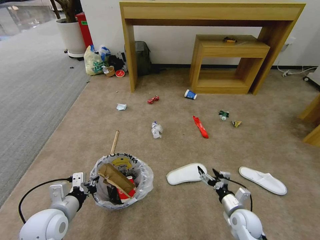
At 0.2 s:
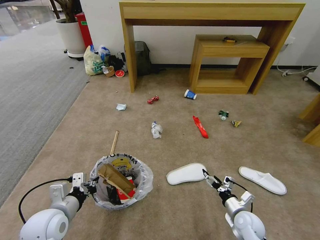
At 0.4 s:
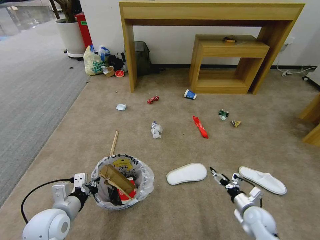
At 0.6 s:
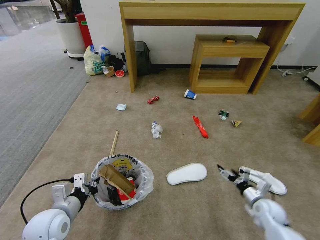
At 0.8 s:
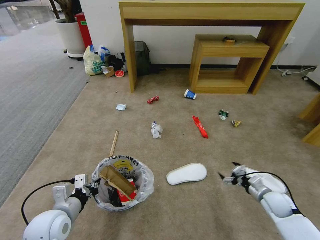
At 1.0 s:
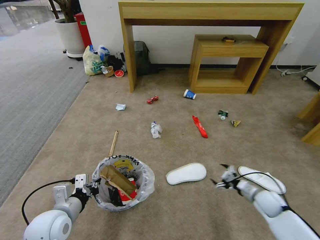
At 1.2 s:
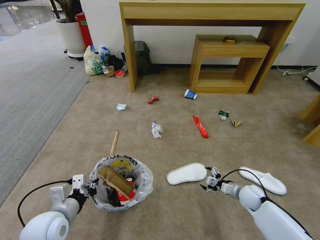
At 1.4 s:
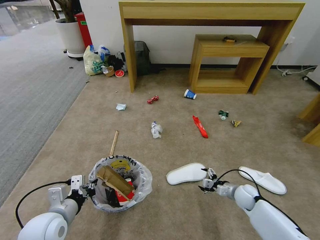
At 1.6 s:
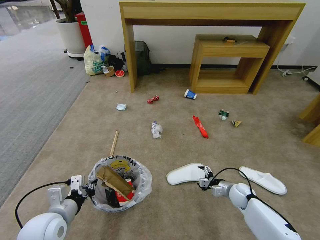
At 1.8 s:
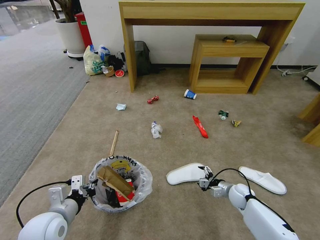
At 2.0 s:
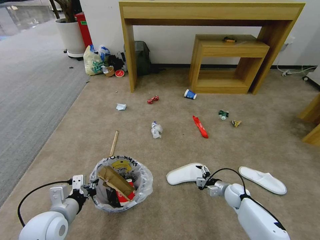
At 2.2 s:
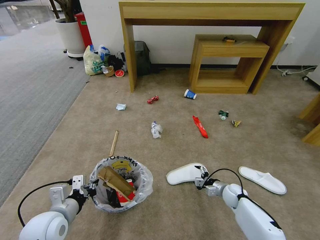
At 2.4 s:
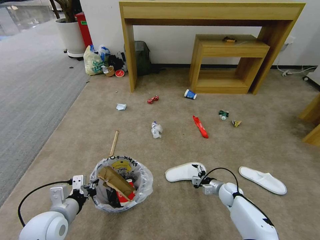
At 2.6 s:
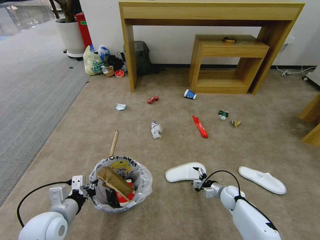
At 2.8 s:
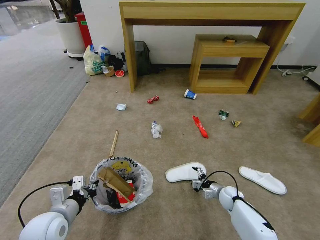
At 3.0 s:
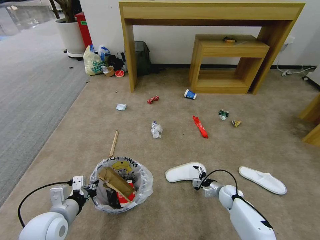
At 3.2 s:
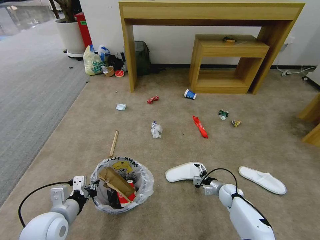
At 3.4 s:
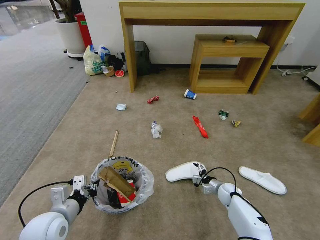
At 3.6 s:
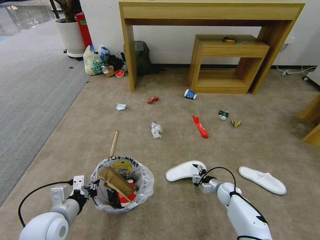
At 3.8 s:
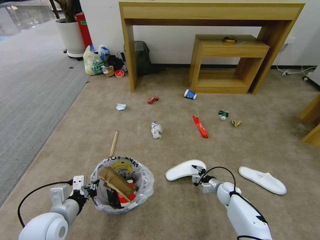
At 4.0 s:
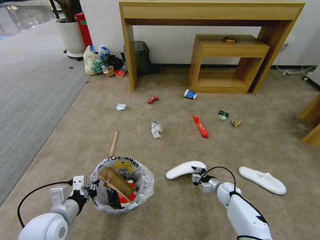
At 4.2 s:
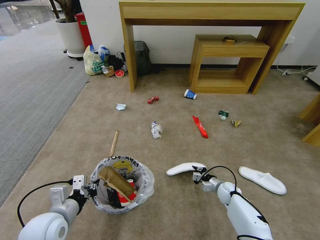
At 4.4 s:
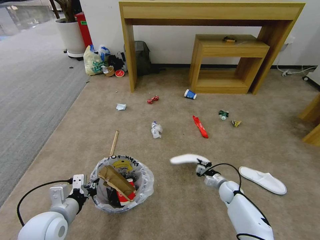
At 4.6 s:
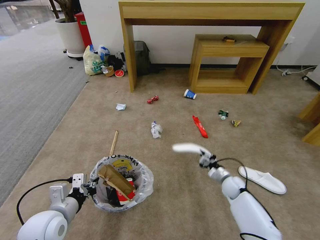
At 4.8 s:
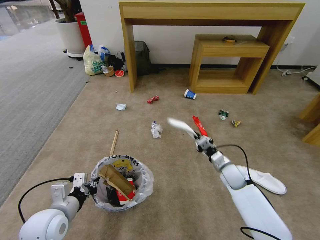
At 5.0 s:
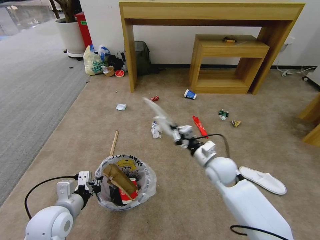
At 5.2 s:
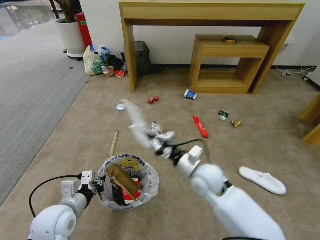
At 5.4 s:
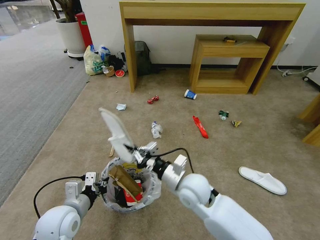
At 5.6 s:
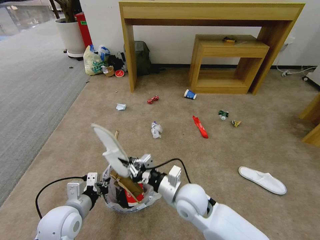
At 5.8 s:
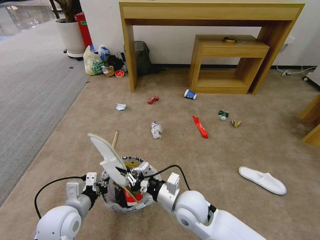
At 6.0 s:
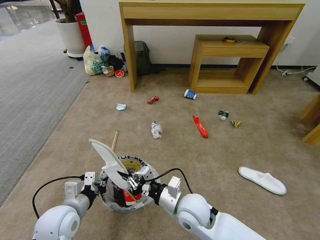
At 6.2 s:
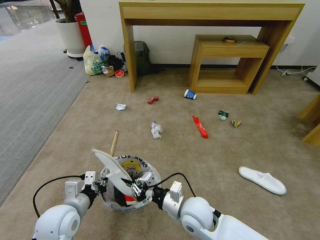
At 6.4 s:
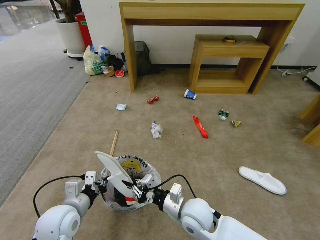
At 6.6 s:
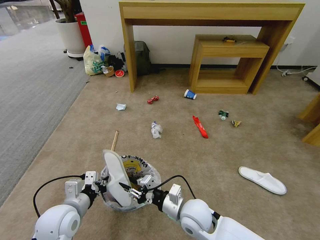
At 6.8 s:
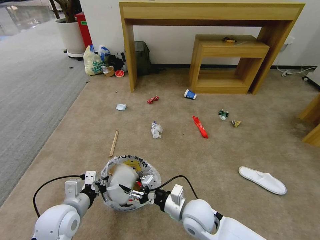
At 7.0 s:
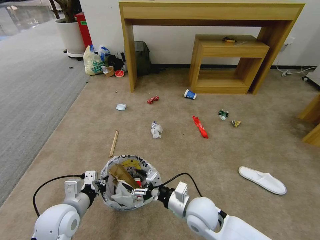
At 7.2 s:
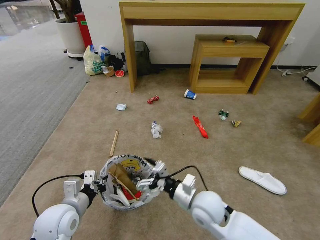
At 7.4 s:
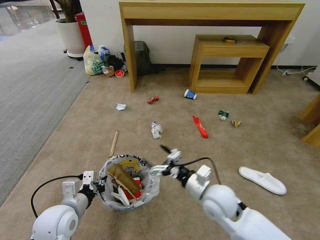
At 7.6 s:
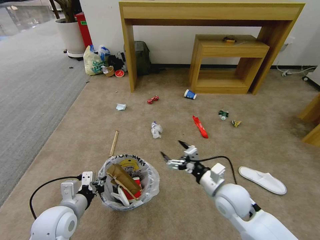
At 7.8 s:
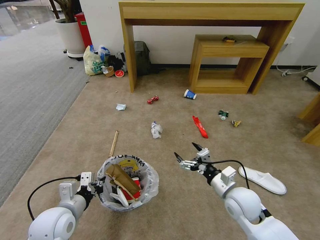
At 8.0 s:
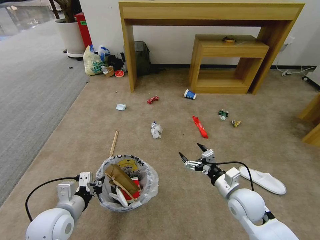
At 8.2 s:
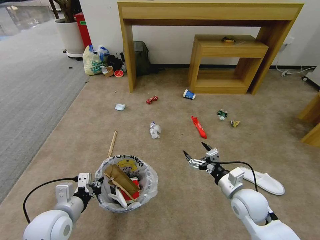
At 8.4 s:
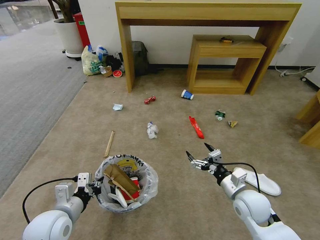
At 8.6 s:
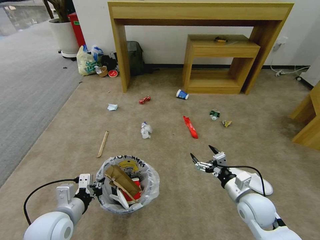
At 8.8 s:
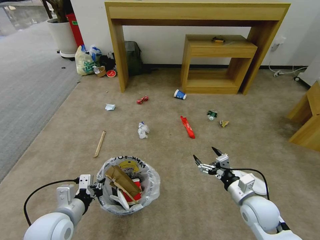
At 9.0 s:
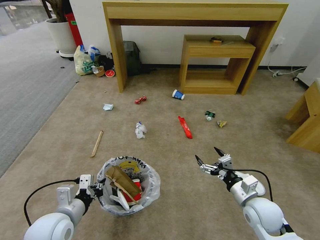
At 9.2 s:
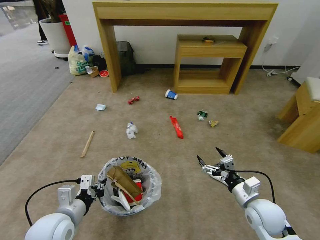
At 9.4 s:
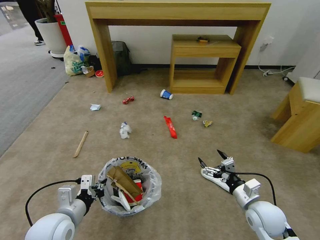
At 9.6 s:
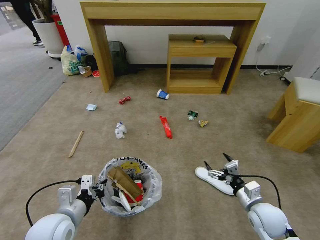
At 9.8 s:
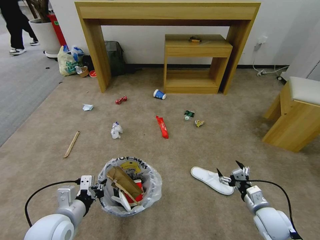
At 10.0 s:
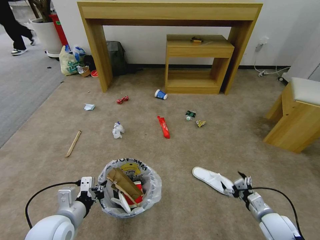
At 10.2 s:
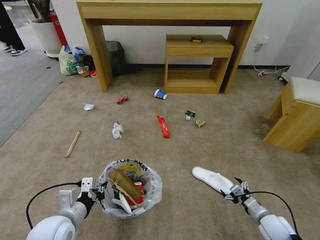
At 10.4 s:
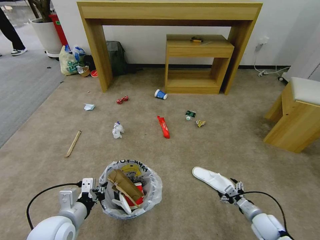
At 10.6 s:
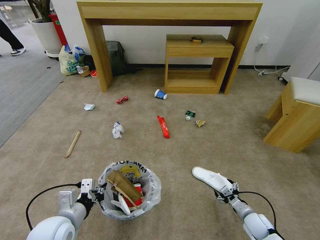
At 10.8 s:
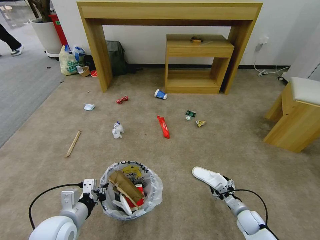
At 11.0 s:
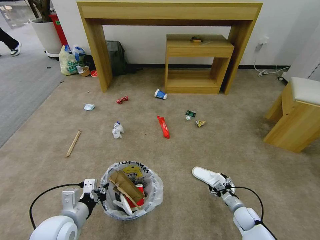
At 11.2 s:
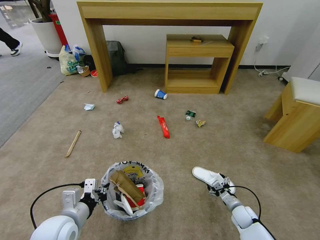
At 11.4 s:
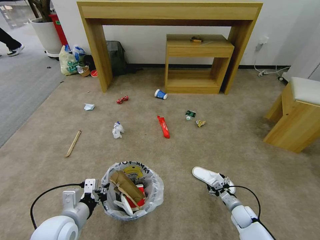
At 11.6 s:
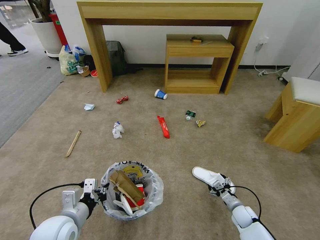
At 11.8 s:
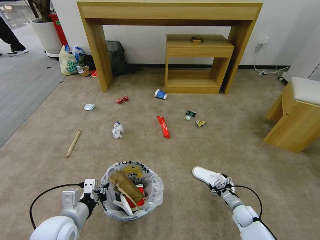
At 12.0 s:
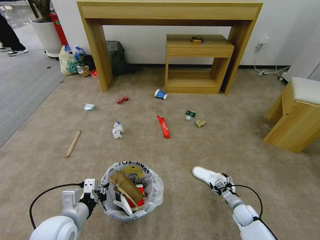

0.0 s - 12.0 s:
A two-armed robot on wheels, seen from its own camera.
Task of the whole recording: Pick up the trash bin and place the garbage on the floor into it.
0.0 s - 1.6 s: The right gripper is displaced forward by about 10 cm, and travels to the right and back again, approximately 15 cm each way.
1.6 s - 3.0 s: The right gripper changes place by approximately 5 cm.
3.0 s - 4.4 s: The right gripper closes its fingers.
4.4 s - 6.0 s: The right gripper is displaced to the left, upward and backward by approximately 35 cm.
6.0 s - 7.6 s: The right gripper heads to the right, covering approximately 10 cm, and opens.
7.6 s - 9.0 s: The right gripper goes approximately 10 cm to the right.
9.0 s - 10.4 s: The right gripper travels downward and to the right by about 20 cm.
10.4 s - 12.0 s: The right gripper travels downward and forward by approximately 10 cm.

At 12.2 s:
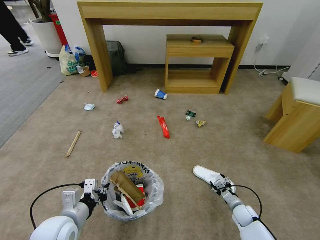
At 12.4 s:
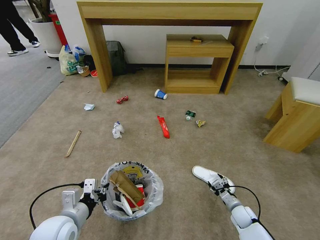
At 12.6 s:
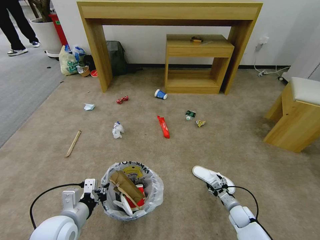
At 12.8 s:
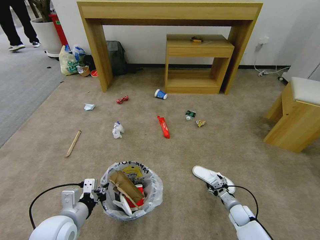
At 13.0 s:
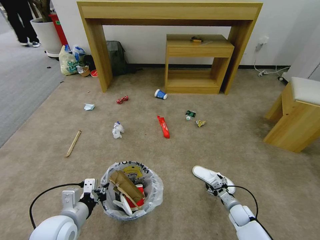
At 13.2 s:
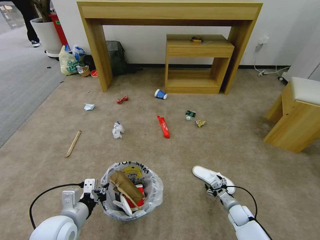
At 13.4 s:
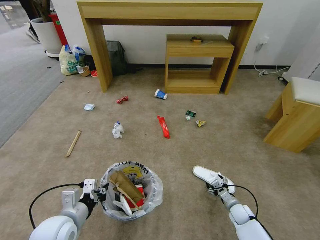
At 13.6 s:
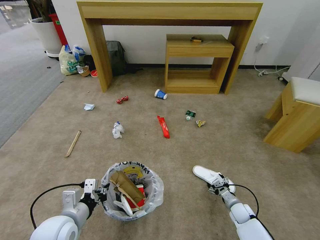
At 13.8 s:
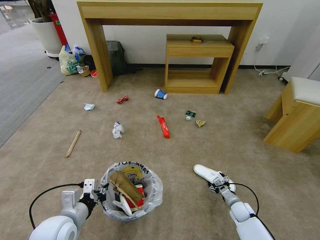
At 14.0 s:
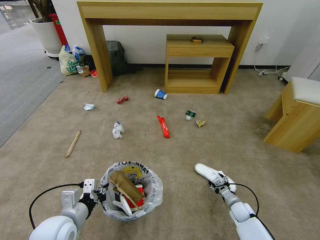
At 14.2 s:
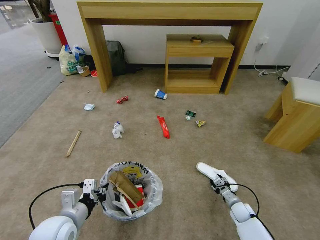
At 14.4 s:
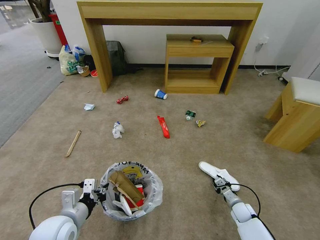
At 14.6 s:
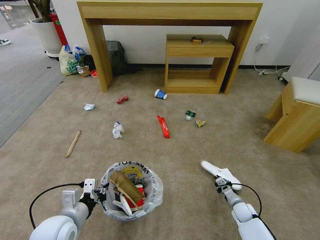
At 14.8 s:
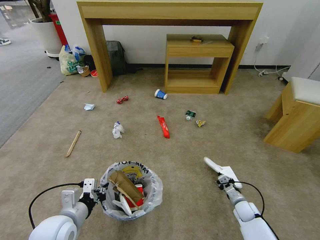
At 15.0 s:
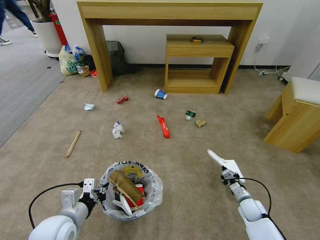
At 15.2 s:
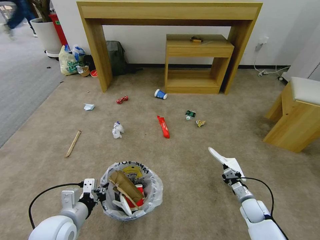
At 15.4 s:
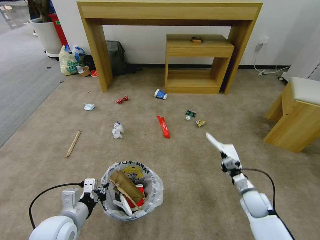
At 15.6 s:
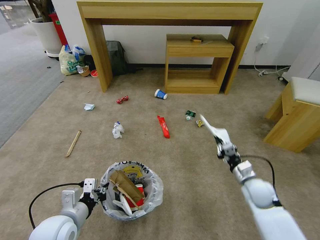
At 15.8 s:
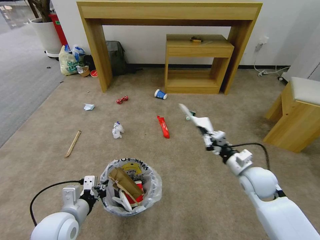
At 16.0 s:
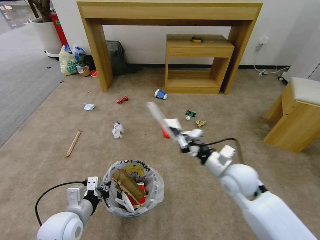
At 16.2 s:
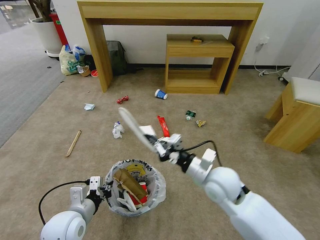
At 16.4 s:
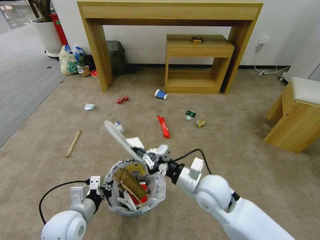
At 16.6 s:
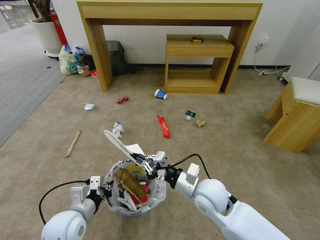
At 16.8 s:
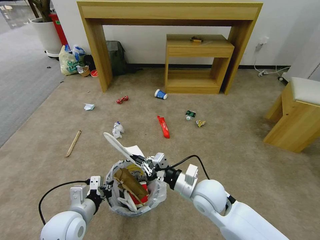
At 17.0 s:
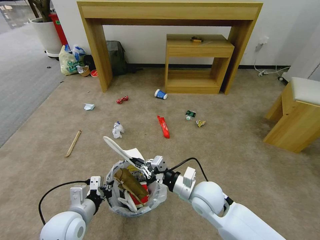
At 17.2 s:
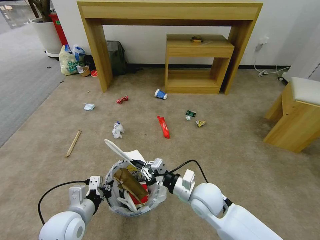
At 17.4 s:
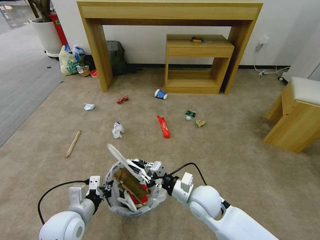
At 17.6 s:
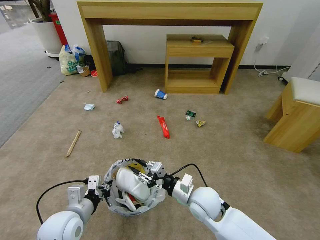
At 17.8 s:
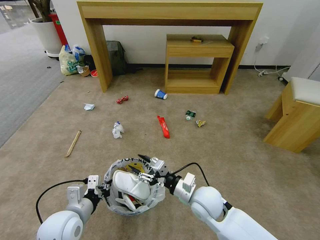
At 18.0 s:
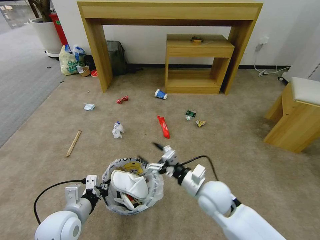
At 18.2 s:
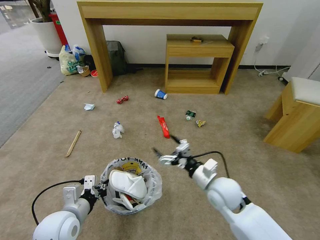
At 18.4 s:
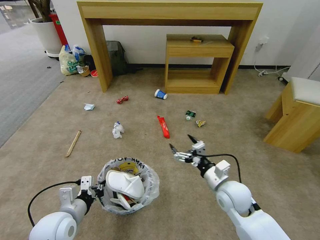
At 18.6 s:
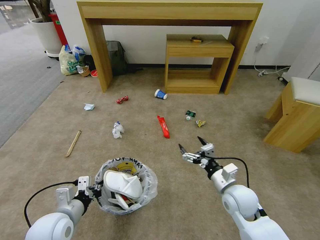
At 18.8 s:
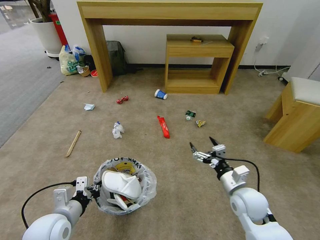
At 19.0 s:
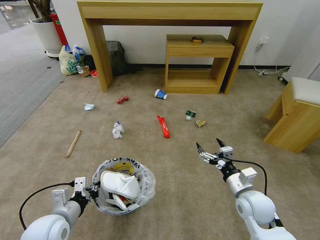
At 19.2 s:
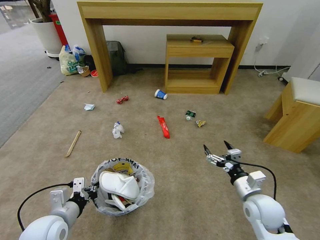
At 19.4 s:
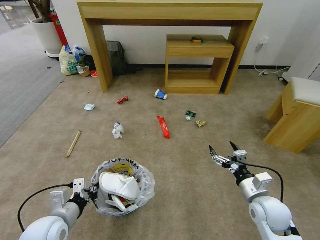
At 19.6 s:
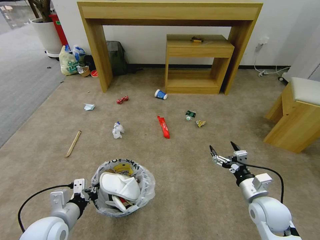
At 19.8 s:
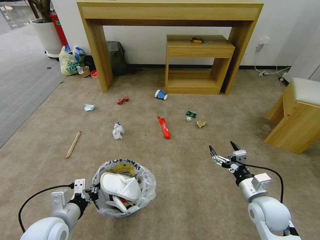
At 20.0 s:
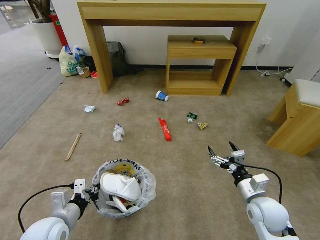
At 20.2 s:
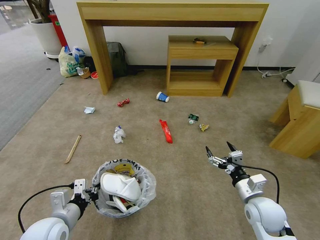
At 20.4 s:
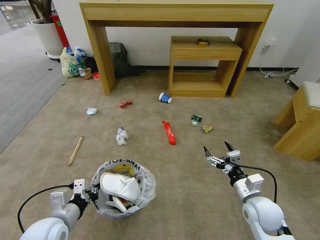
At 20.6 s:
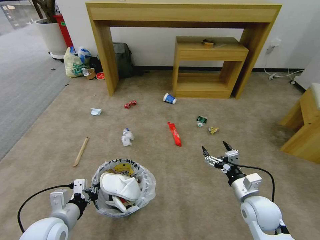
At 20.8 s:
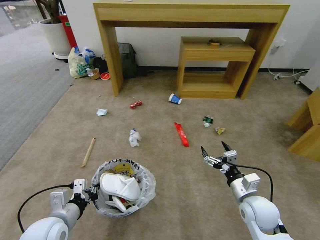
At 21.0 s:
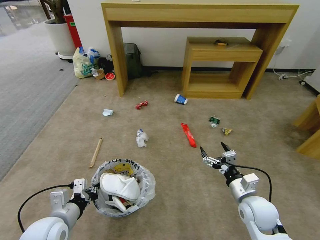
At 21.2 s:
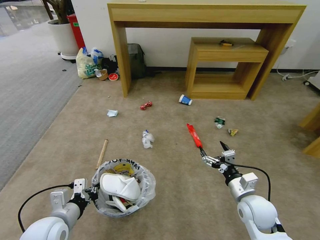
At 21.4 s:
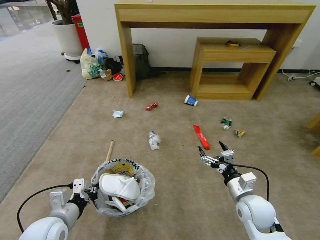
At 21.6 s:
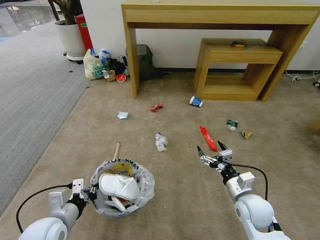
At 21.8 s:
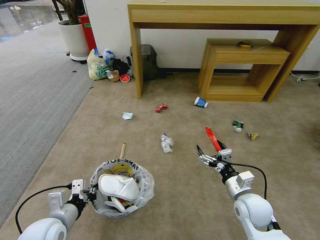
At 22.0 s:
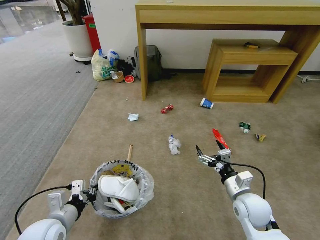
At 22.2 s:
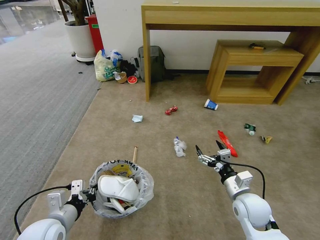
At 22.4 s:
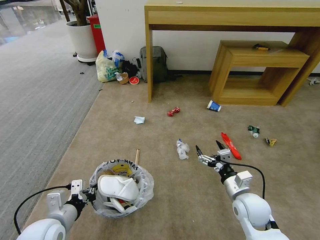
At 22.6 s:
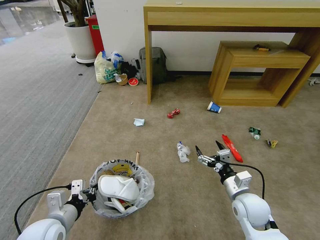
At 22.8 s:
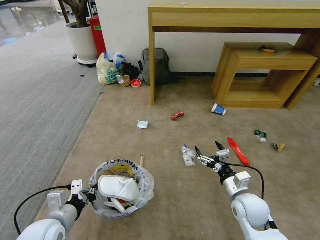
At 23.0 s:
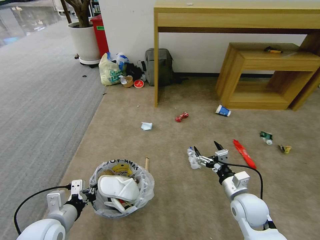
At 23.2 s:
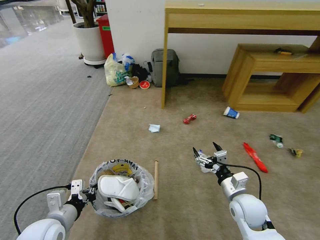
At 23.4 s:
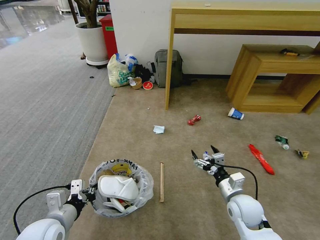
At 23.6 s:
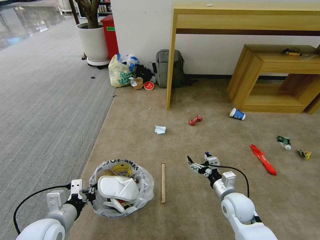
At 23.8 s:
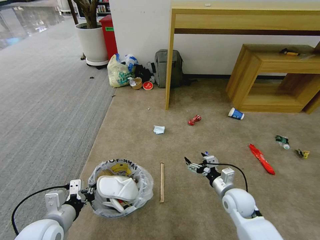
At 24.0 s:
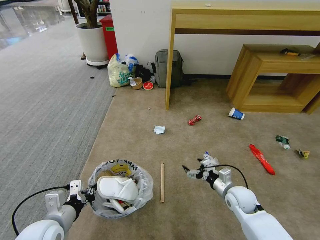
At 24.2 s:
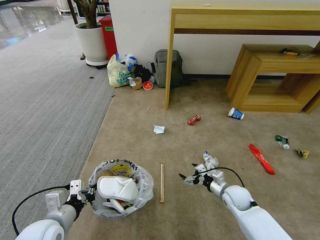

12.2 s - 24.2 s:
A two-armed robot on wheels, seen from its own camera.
Task of the whole recording: Pick up the trash bin and place the garbage on the floor into it.
12.2 s - 13.8 s: The grippers make only small movements.
13.8 s - 15.2 s: The right gripper shifts some 10 cm upward, and closes.
15.2 s - 16.6 s: The right gripper heads to the left and upward, covering roughly 30 cm.
16.6 s - 18.2 s: The right gripper shifts about 5 cm to the right, and opens its fingers.
18.2 s - 19.8 s: The right gripper travels to the right by some 10 cm.
22.6 s - 24.2 s: The right gripper heads downward and forward, covering some 15 cm.
